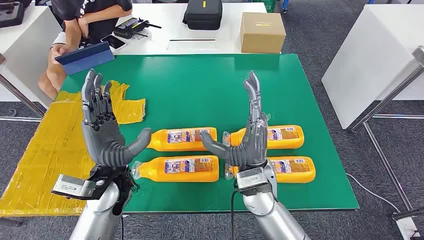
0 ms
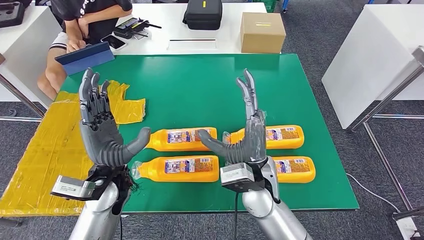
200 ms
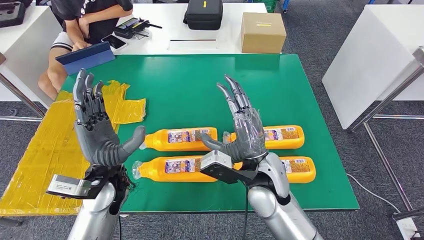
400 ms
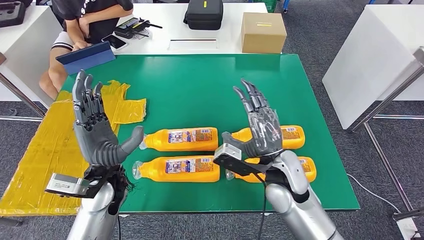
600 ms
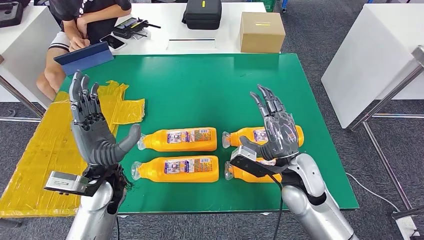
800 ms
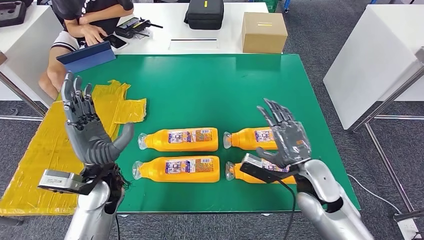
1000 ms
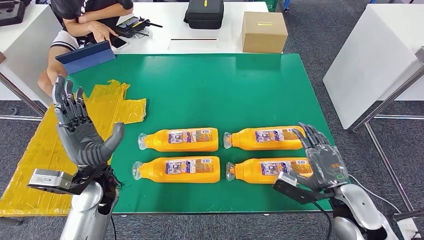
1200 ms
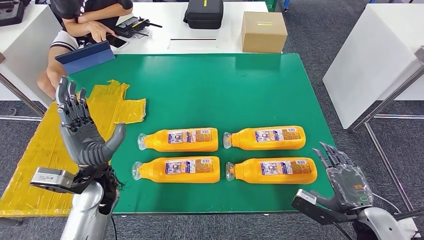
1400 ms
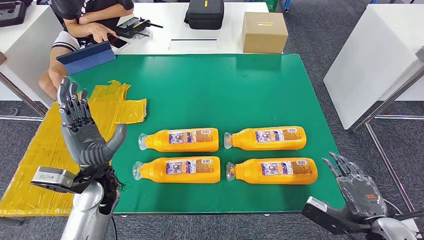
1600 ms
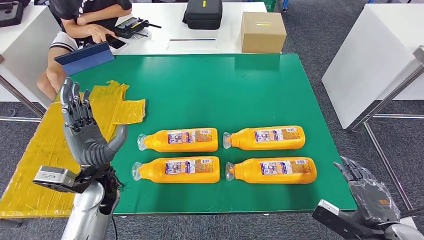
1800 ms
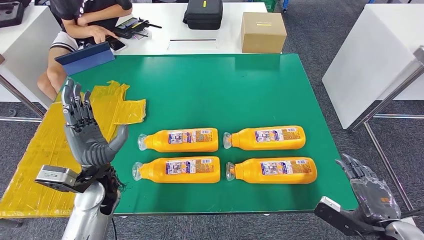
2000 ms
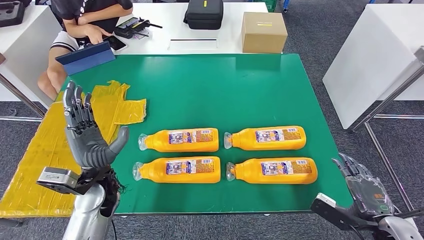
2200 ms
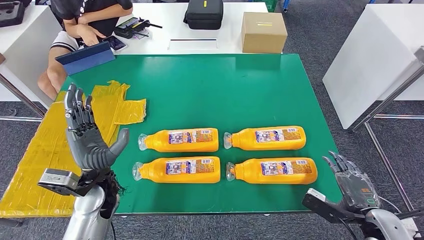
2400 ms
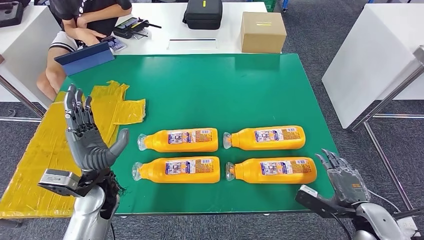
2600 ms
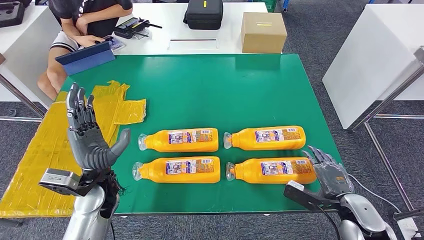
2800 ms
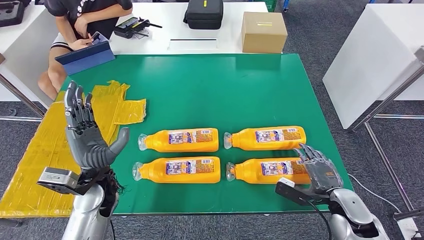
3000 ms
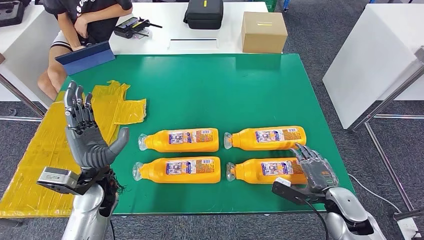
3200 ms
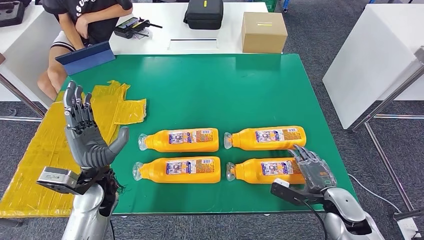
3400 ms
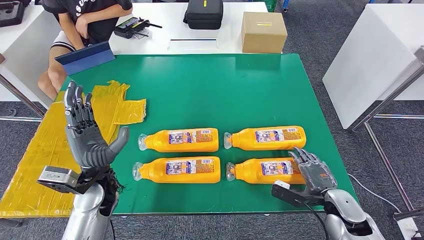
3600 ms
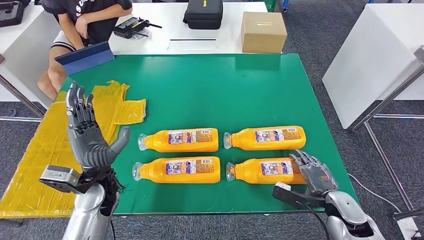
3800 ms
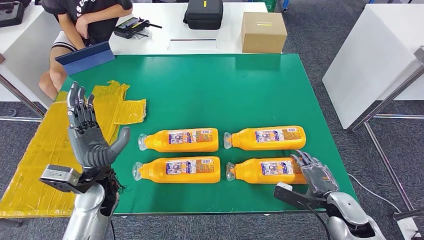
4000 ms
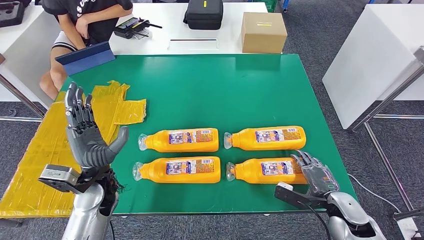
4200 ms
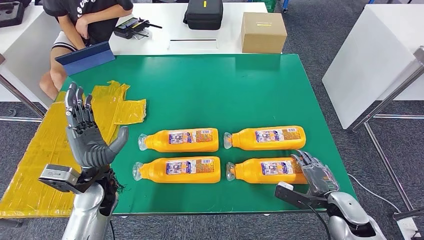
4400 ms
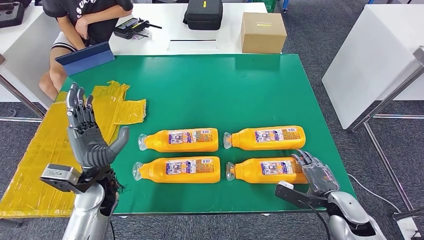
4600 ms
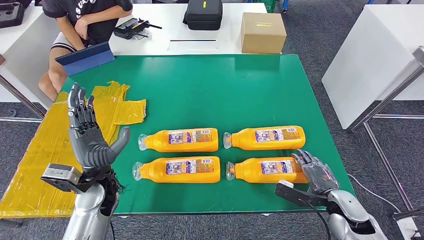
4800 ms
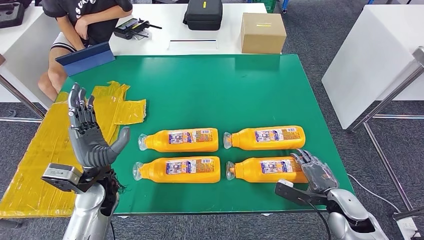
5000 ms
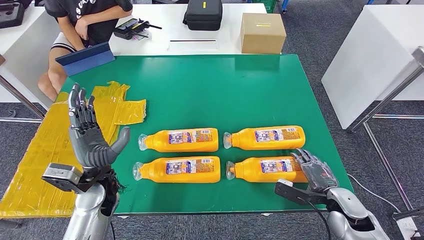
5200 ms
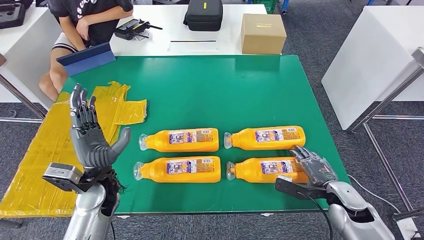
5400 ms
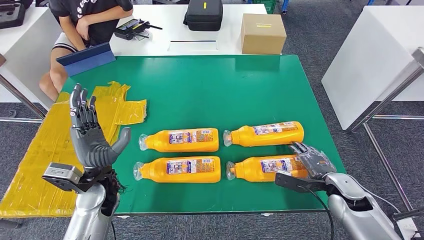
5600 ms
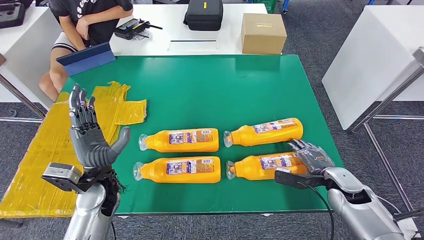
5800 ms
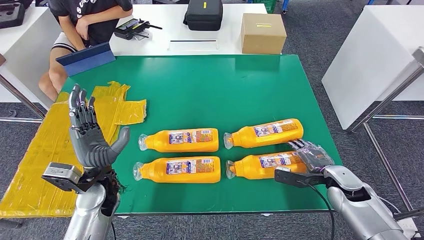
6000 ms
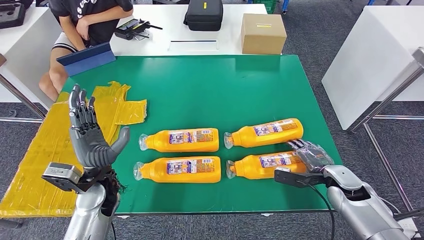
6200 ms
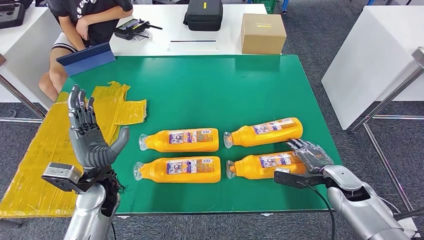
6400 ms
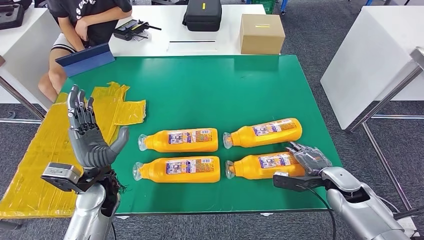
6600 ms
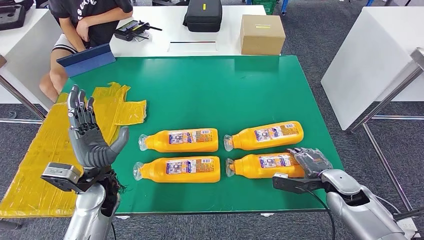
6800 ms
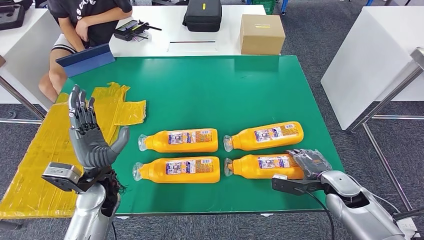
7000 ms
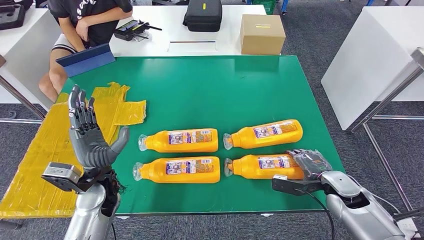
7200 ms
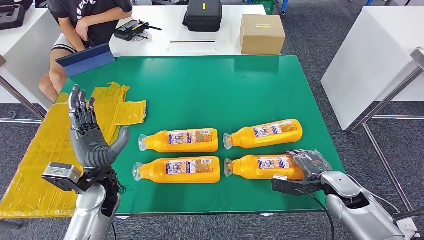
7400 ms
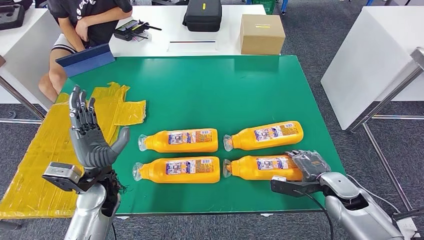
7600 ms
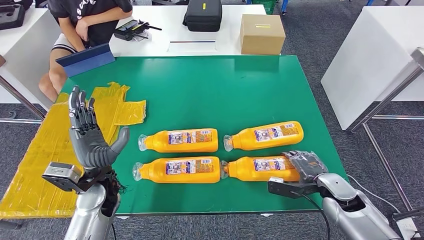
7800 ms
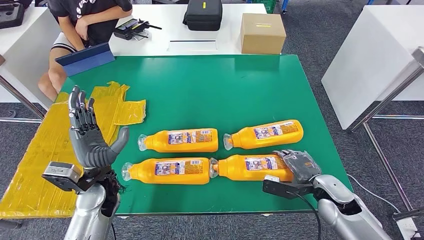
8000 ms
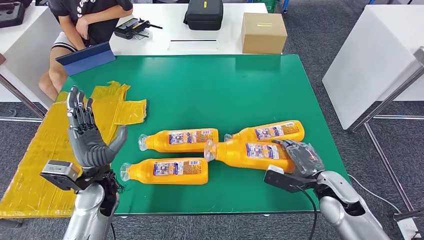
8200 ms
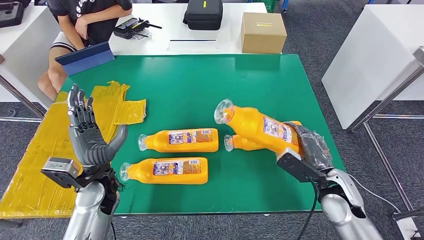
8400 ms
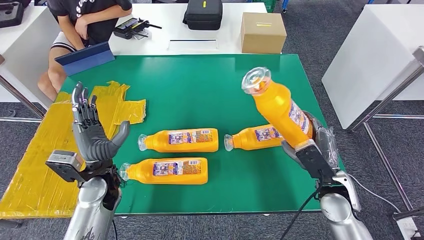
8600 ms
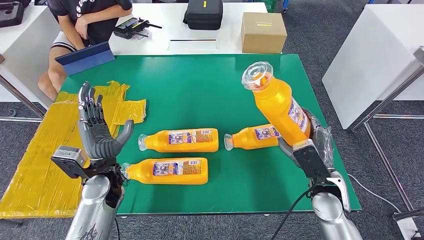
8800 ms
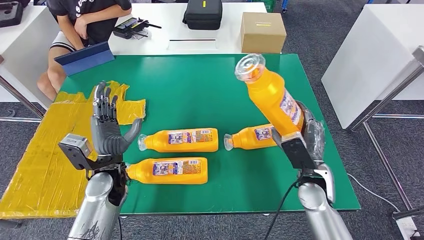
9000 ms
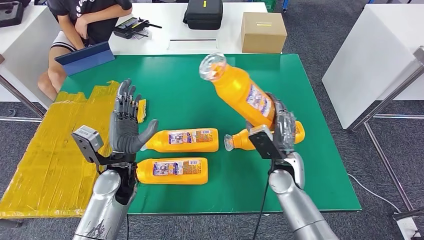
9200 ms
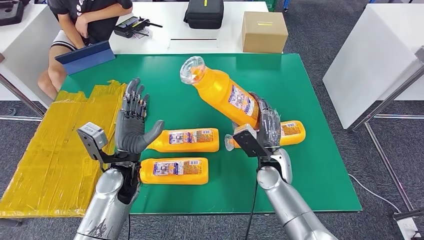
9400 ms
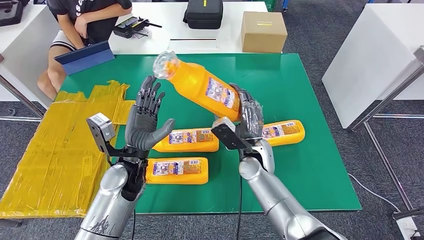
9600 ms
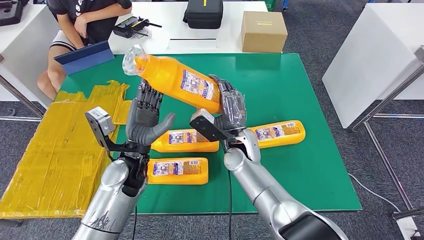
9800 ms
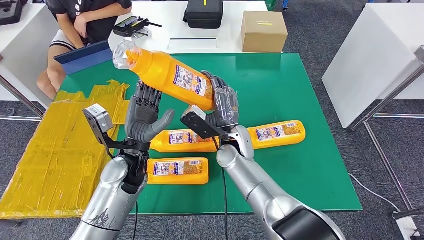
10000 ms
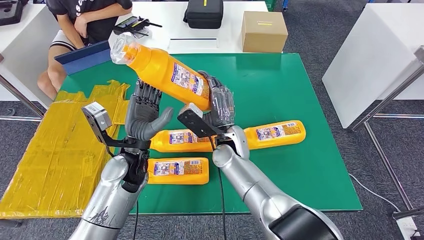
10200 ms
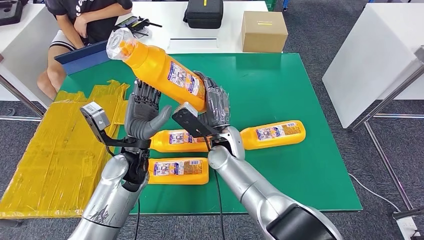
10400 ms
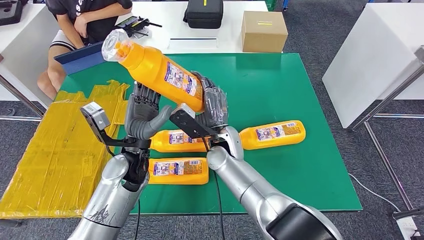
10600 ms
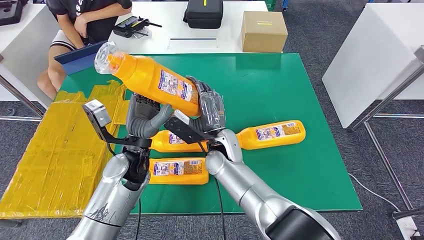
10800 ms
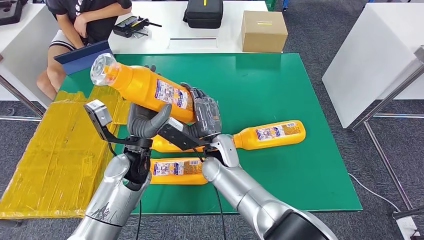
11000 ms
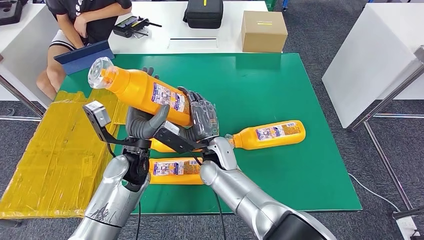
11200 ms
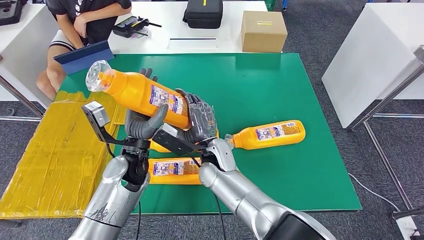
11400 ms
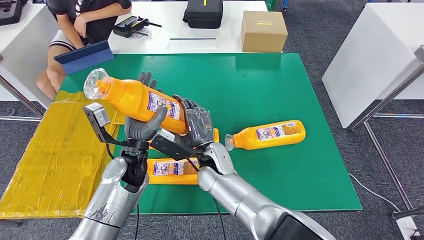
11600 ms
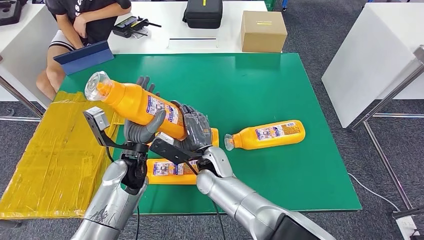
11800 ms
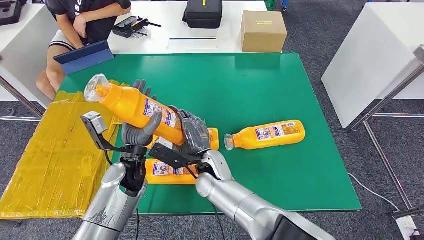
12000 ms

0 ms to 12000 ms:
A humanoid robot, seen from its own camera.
Step, 0 ms to 10000 ms: Take the fast-moving consumer goods bottle from the table.
1600 ms to 3000 ms: The right hand goes about 10 cm forward and downward.
3000 ms to 4400 ms: There are only small adjustments of the hands.
4400 ms to 6000 ms: The right hand is displaced forward by approximately 5 cm.
6000 ms to 7600 ms: There are only small adjustments of the hands.

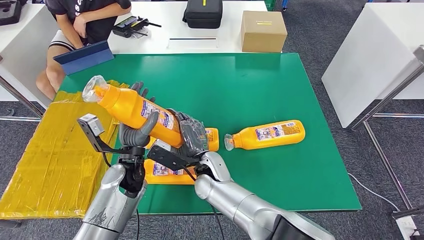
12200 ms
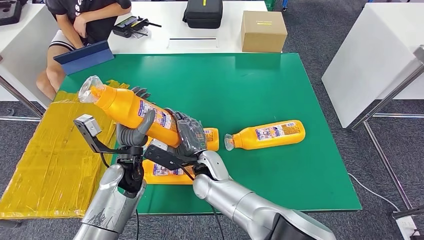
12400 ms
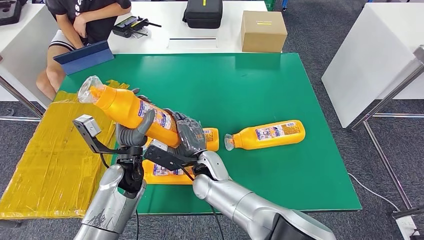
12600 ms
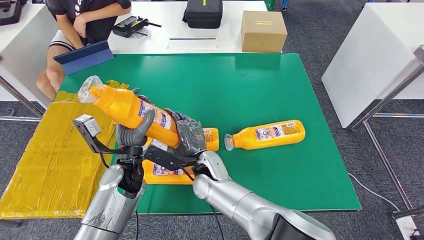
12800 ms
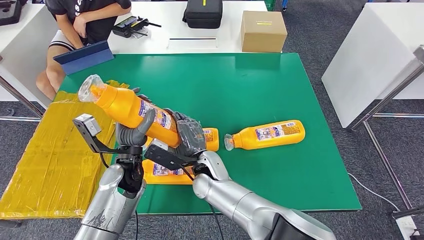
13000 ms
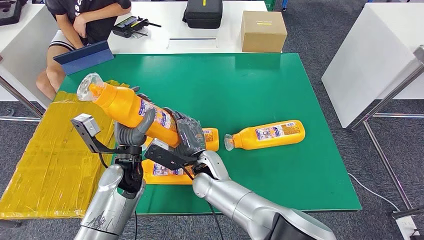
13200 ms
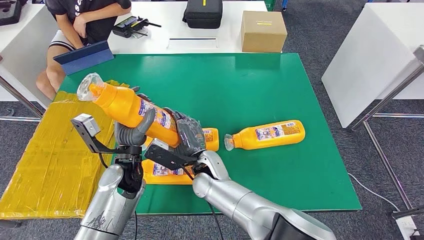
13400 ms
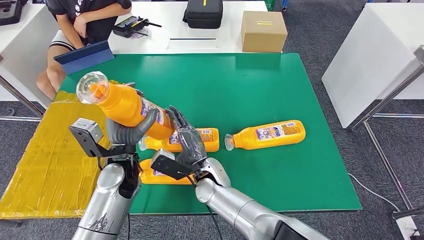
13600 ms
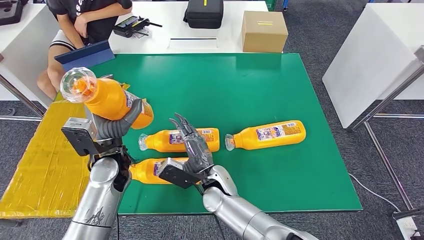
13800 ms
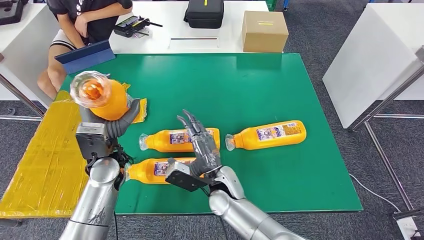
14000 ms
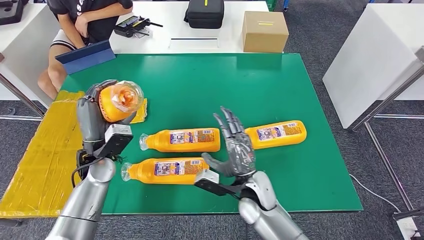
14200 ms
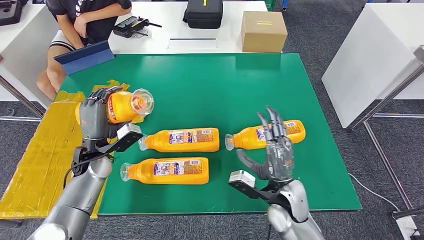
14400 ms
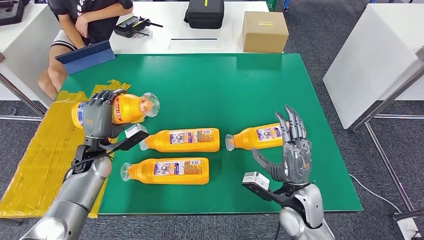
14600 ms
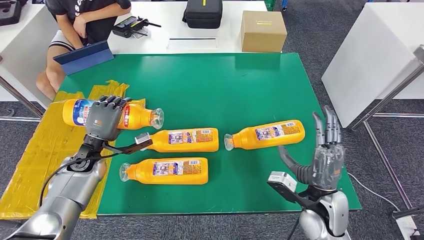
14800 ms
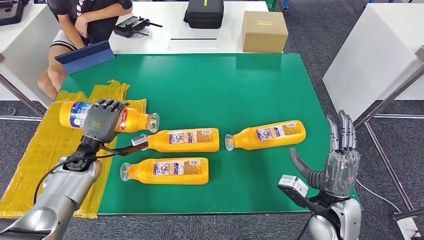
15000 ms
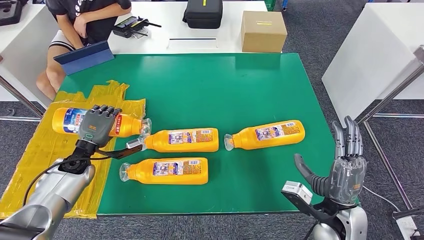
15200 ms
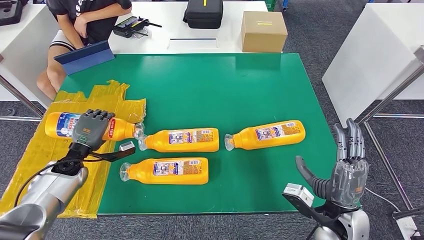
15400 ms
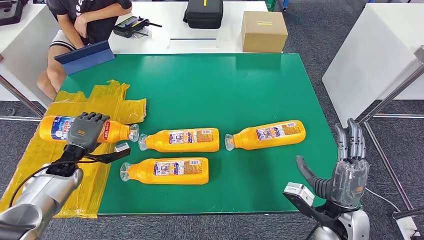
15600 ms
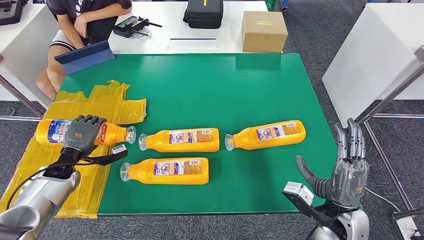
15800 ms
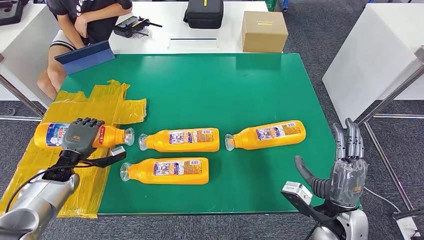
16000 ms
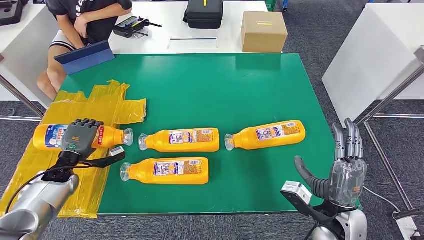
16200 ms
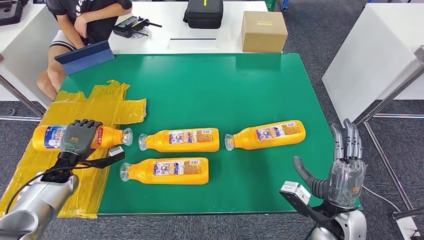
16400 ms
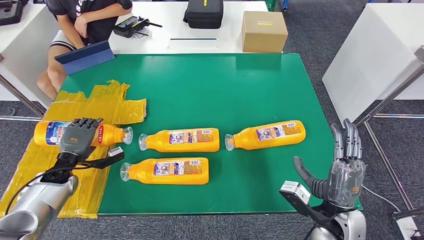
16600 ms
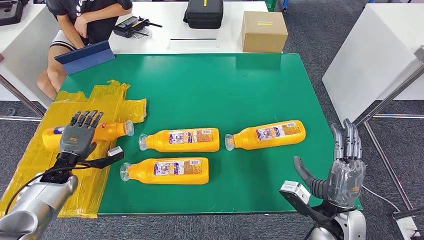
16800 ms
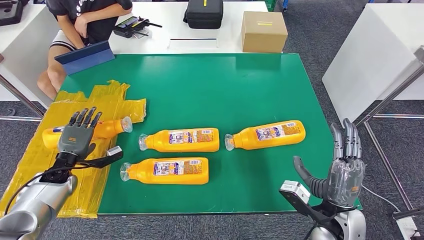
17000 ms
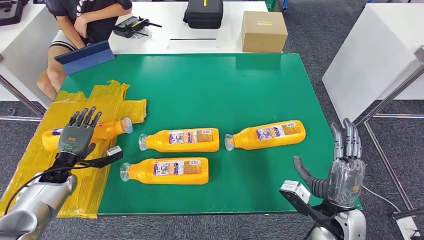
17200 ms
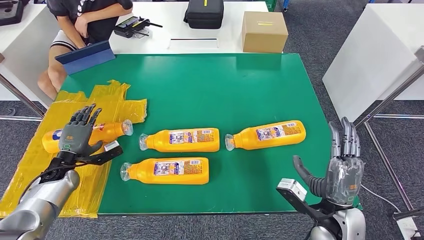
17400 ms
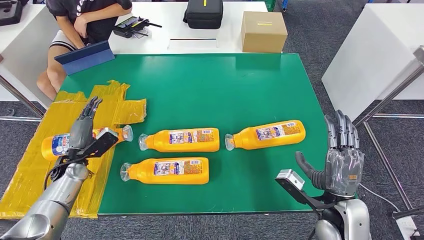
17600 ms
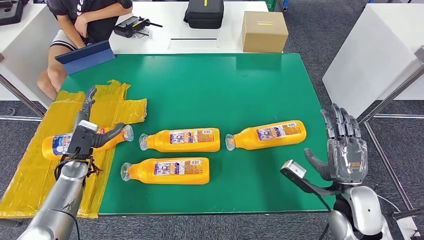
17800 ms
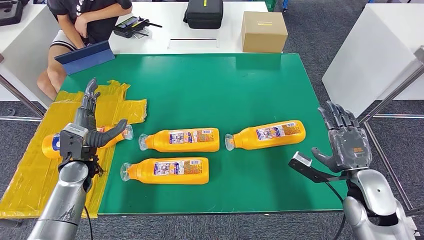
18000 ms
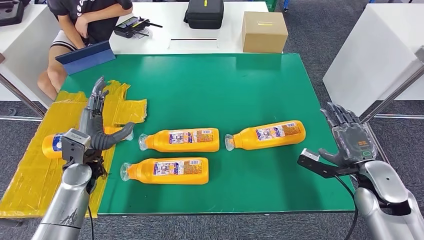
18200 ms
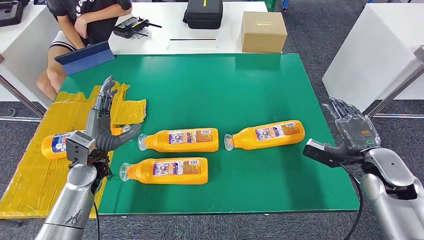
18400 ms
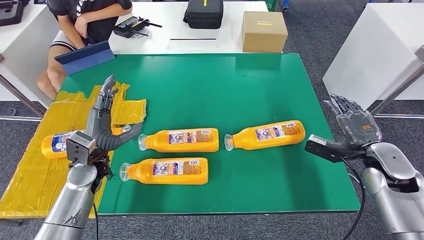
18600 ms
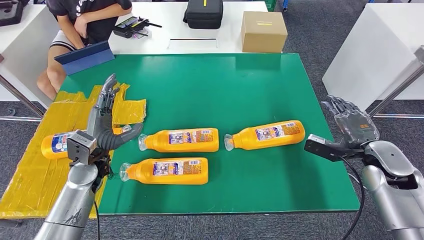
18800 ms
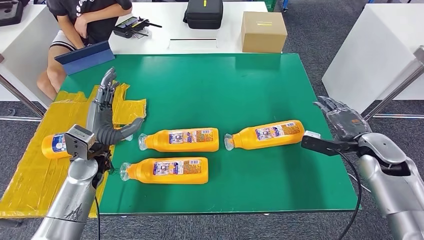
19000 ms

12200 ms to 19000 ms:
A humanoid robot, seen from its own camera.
Step, 12200 ms to 15400 ms: Flip the fast-moving consumer goods bottle to the front side.
12200 ms to 13600 ms: The hands move only a little.
15000 ms to 16200 ms: The left hand travels to the left by about 10 cm.
